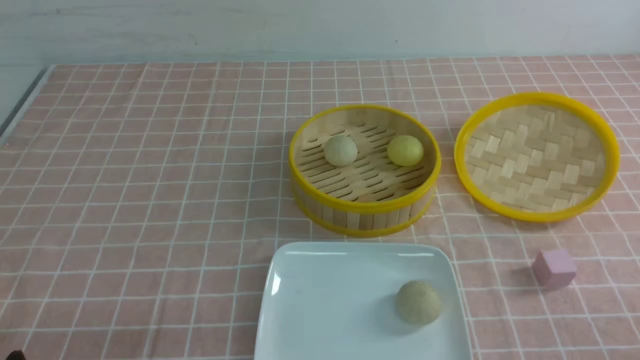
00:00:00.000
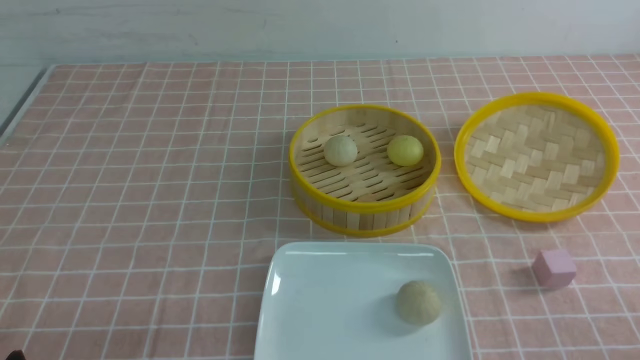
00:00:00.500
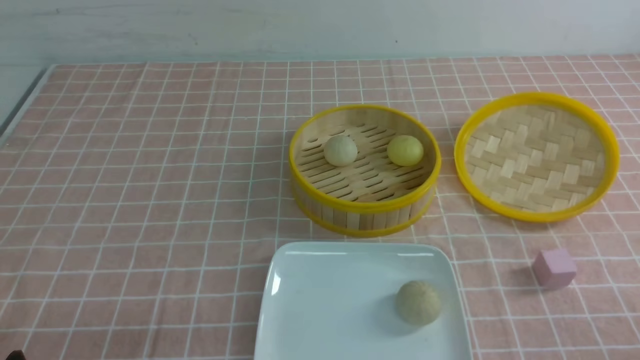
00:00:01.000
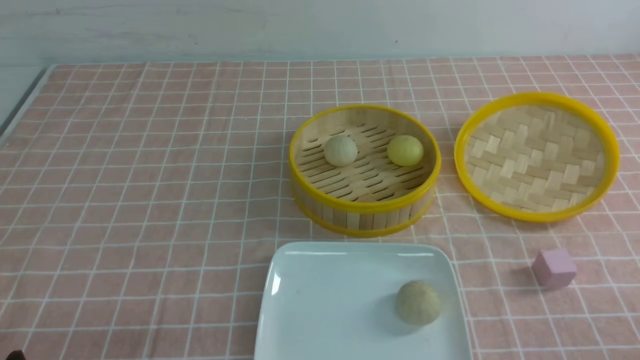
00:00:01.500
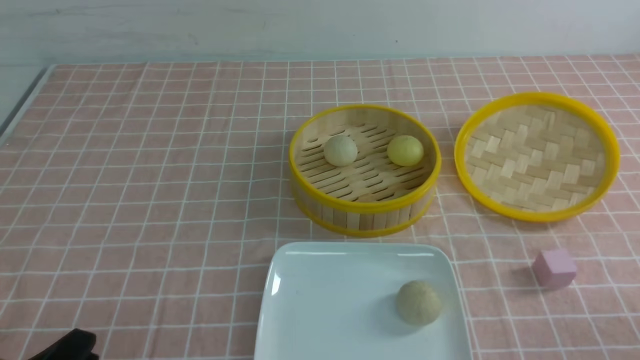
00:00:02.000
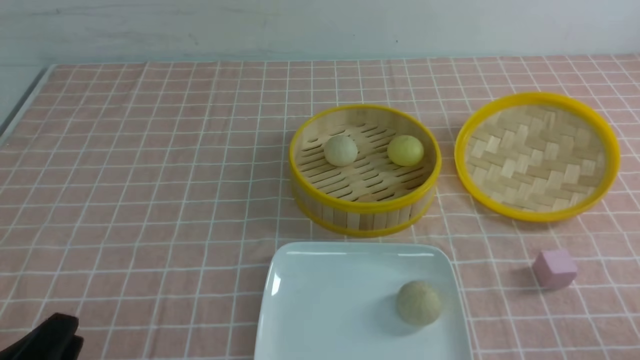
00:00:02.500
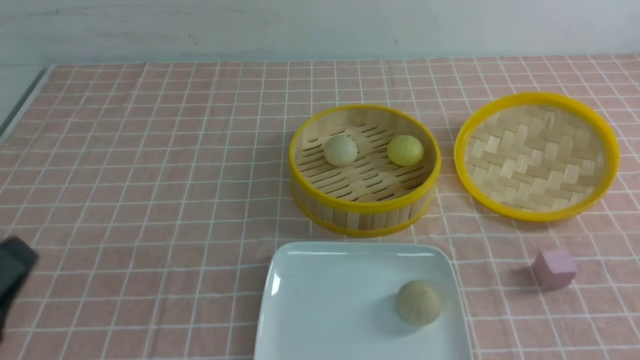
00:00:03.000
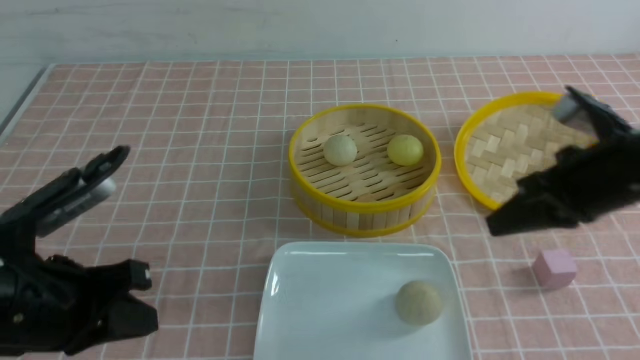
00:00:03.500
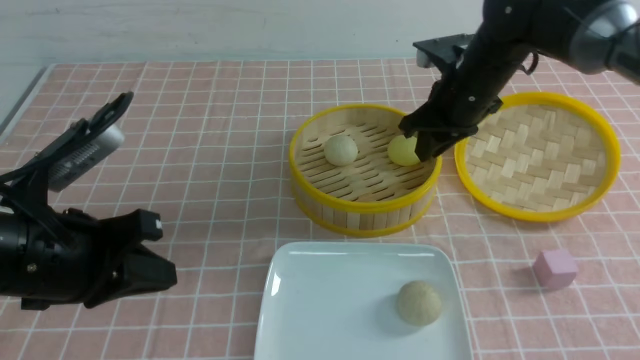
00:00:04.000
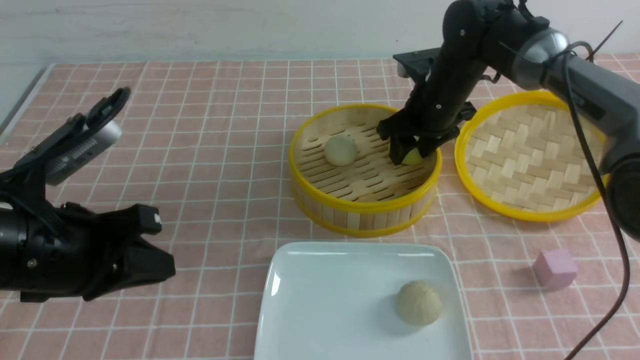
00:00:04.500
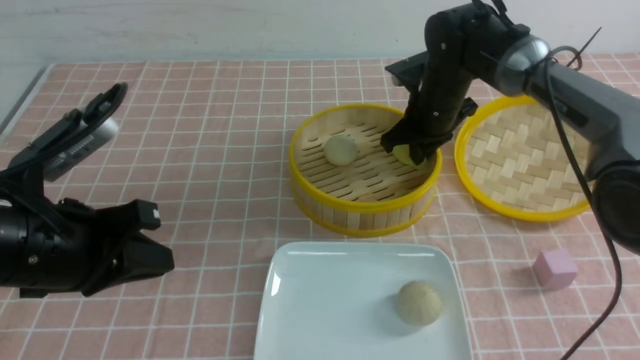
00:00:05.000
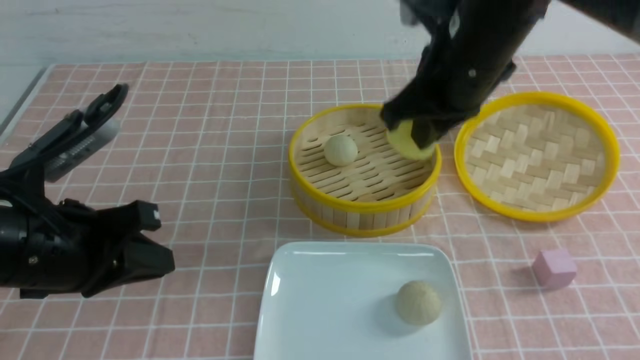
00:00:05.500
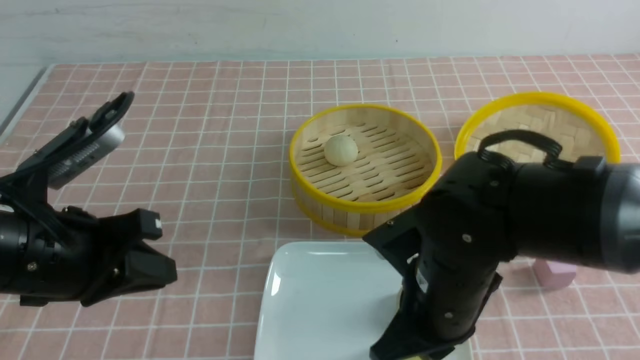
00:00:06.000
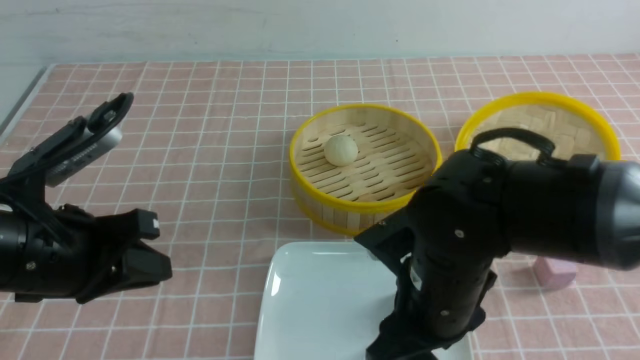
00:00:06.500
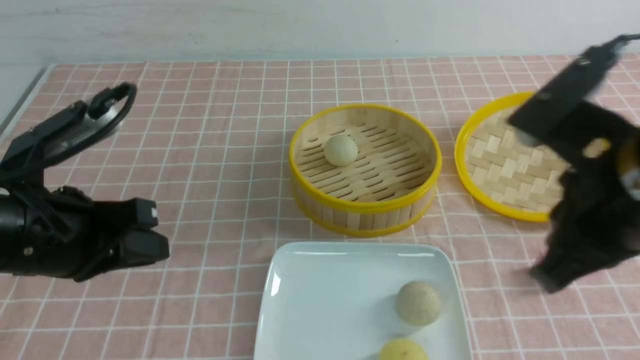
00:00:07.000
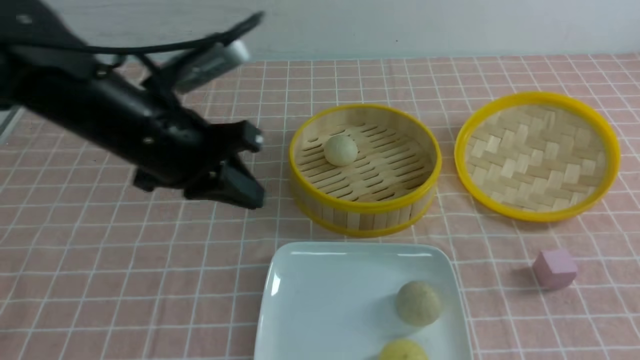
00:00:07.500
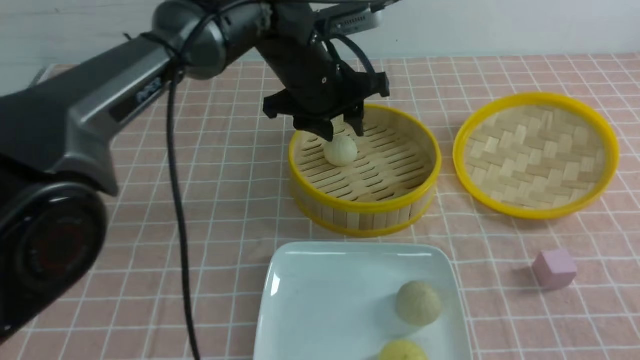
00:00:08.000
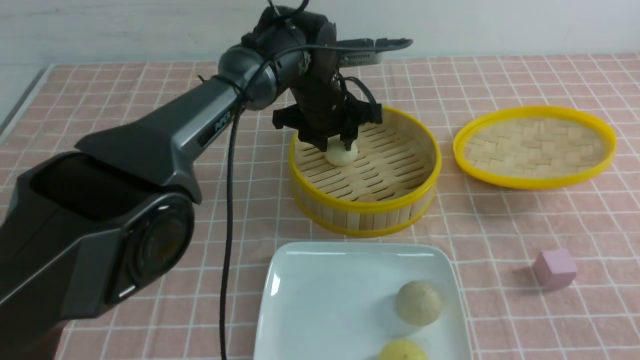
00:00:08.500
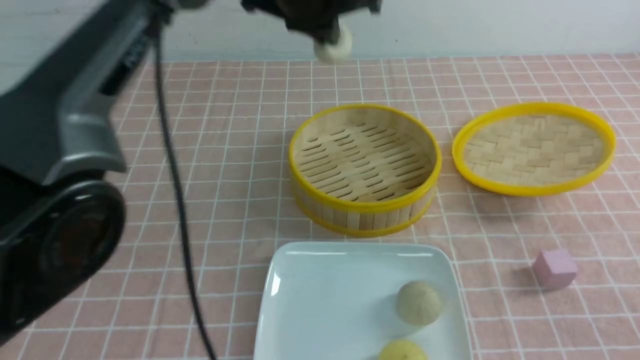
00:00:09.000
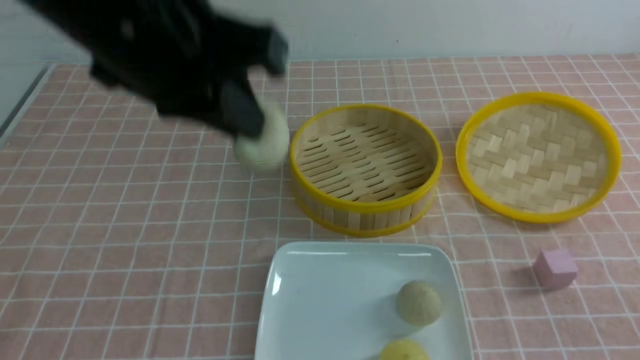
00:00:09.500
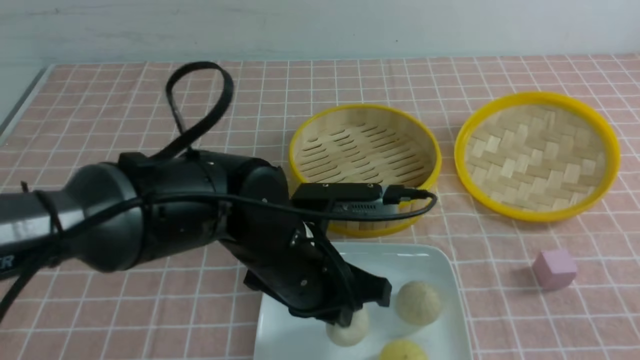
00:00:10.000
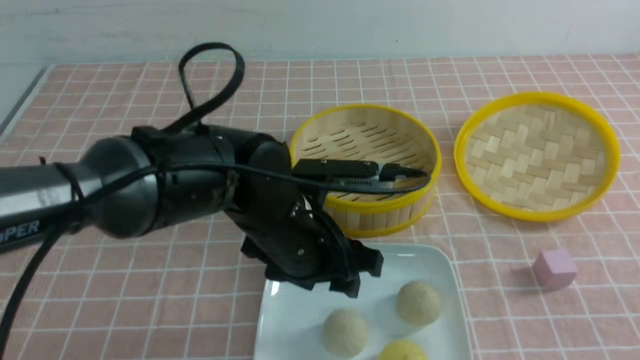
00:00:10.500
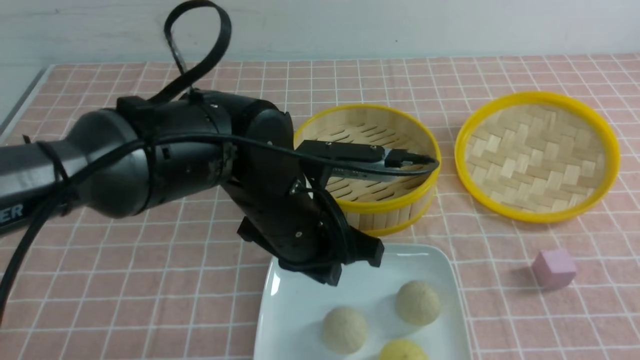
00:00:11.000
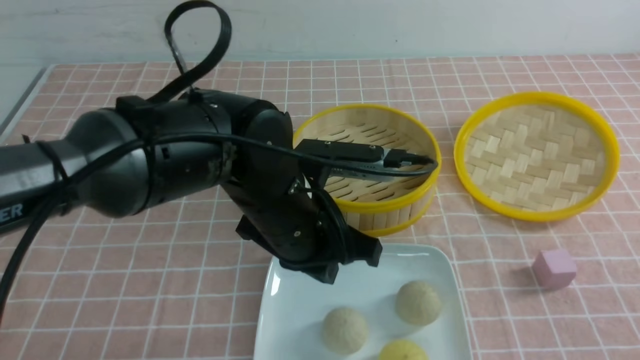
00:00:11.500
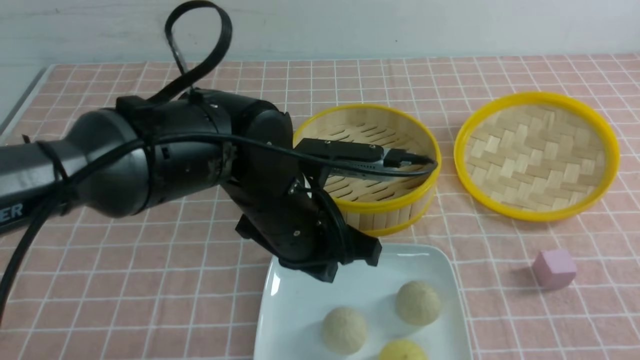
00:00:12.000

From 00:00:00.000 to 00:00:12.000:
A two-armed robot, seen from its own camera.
Step, from 00:00:00.000 to 00:00:05.000: use the right arm to grab the steamed stuffed bun that is closest to it.
Step, from 00:00:05.500 to 00:00:06.500: use the right arm to put the steamed stuffed bun into the plate.
Step, from 00:00:07.000 to 00:00:08.500: use the left arm to grab the steamed stuffed bun that is closest to it.
Step, from 00:00:09.000 to 00:00:10.000: use the left arm to put the steamed stuffed bun into the plate.
From 00:00:02.000 to 00:00:04.000: The right gripper travels forward and to the left by about 40 cm, and closes, then reopens. The left gripper goes about 15 cm forward and upward, and closes its fingers.
From 00:00:04.000 to 00:00:06.000: The right gripper goes about 25 cm backward, and closes up.
From 00:00:06.000 to 00:00:08.000: The right gripper travels to the right and backward by about 25 cm, and opens, then closes again; the left gripper goes approximately 30 cm forward and to the right, and opens its fingers.
From 00:00:08.000 to 00:00:10.000: The left gripper is displaced backward by roughly 20 cm, and closes.
From 00:00:10.000 to 00:00:12.000: The left gripper opens, then closes once more. The right gripper shifts approximately 5 cm backward.

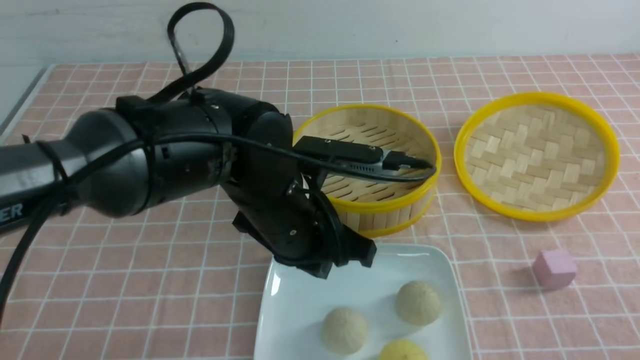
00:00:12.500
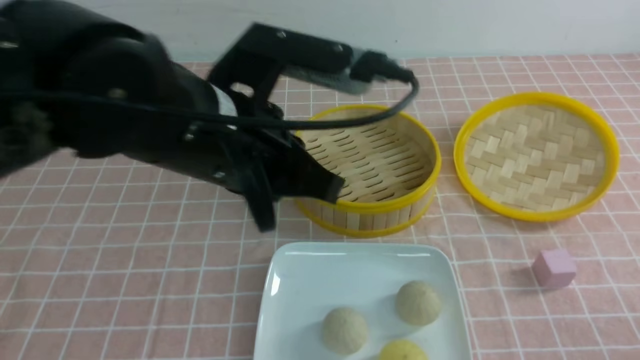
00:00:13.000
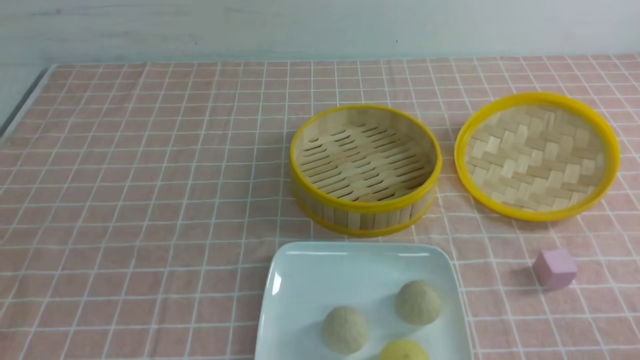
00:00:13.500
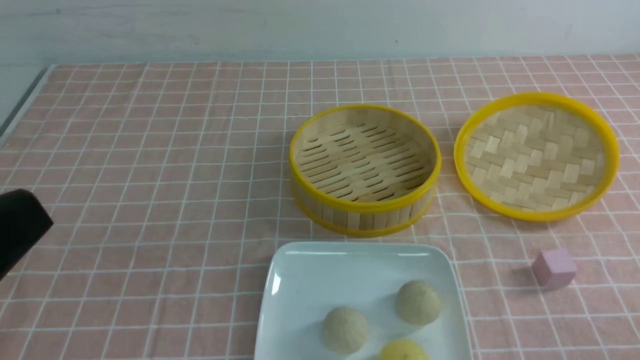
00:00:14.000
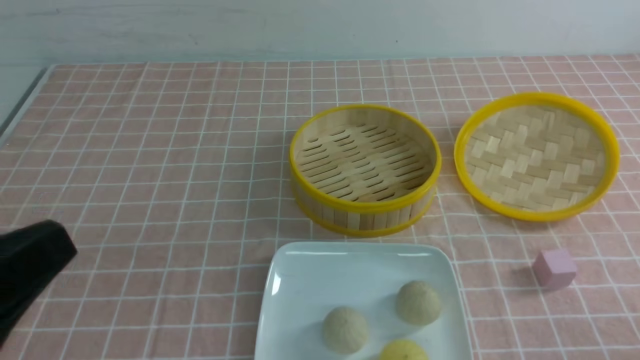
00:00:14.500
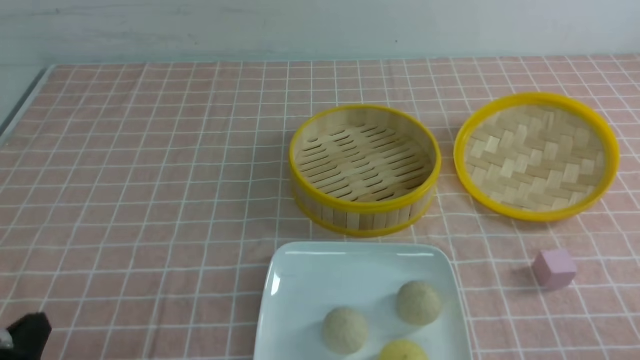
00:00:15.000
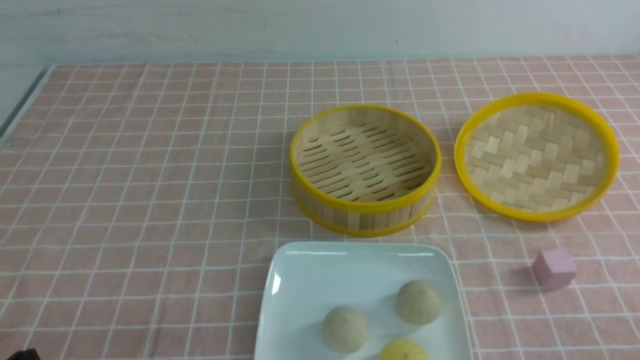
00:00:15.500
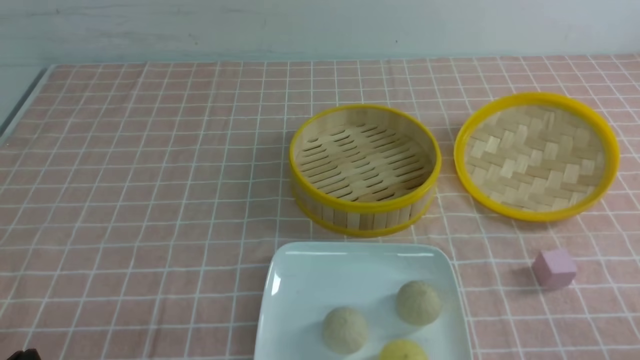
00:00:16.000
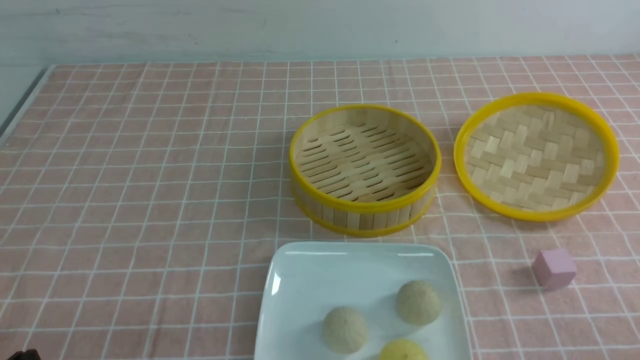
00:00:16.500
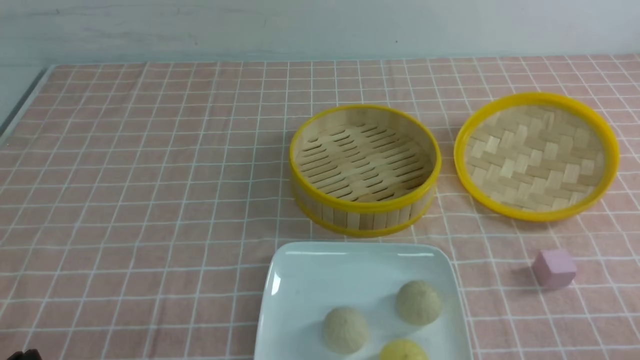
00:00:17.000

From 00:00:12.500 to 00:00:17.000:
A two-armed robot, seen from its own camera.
From 00:00:12.500 to 00:00:14.500: The left gripper travels backward, to the left and upward by roughly 30 cm.
From 00:00:14.500 to 00:00:17.000: The left gripper moves downward, roughly 15 cm.
